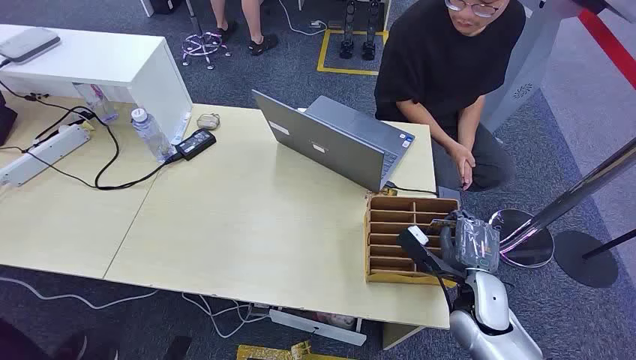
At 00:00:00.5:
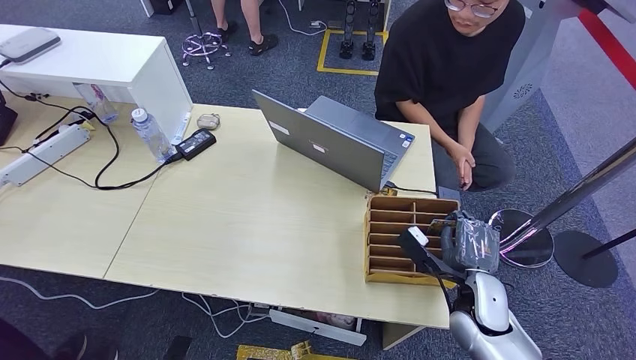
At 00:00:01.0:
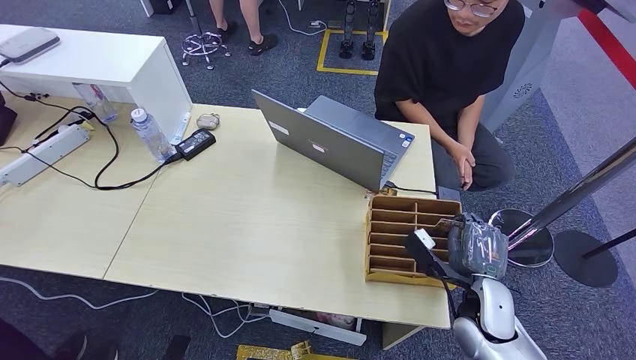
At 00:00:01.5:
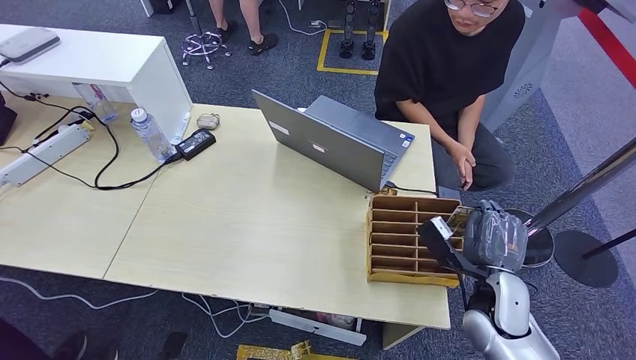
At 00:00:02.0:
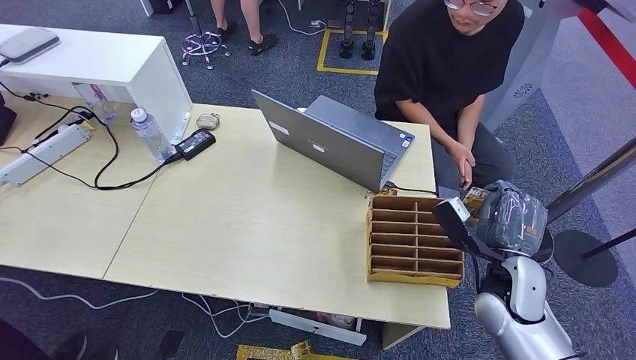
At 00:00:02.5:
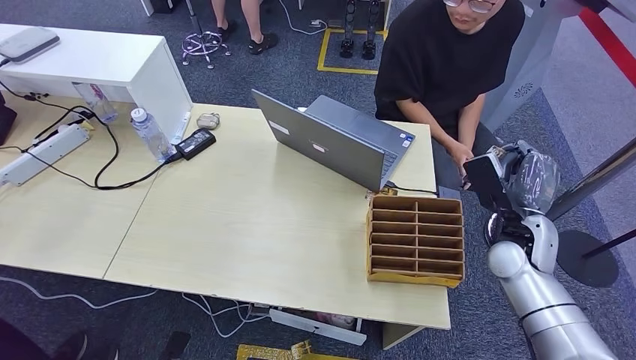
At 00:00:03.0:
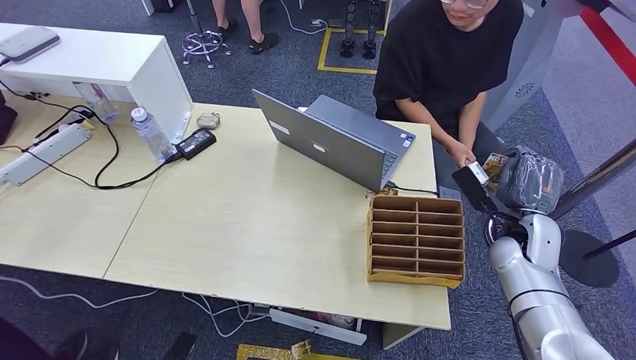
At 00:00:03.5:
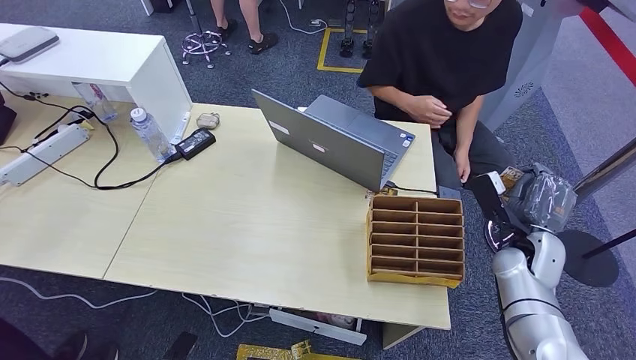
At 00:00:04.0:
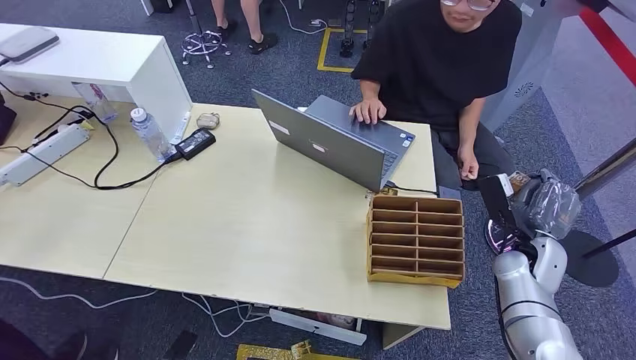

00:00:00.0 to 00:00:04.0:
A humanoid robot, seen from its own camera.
Step, 00:00:00.0 to 00:00:01.5: Pick up the room card from the card holder.
Step, 00:00:02.0 to 00:00:03.5: Hand the room card to the target.
00:00:02.0 to 00:00:04.0: The right hand goes roughly 5 cm to the right.
